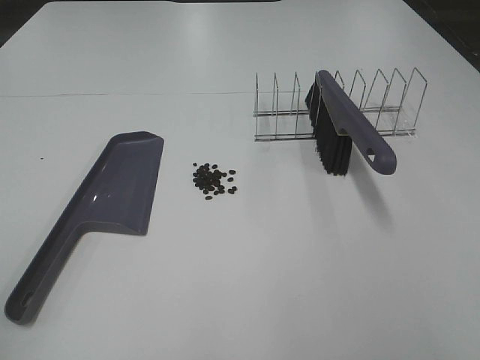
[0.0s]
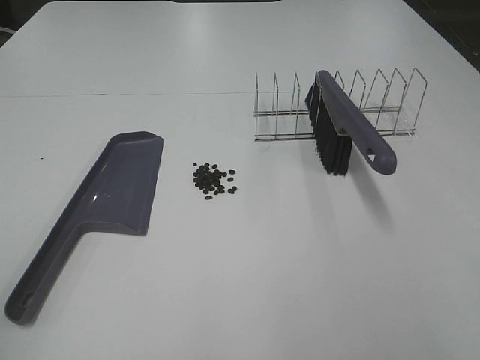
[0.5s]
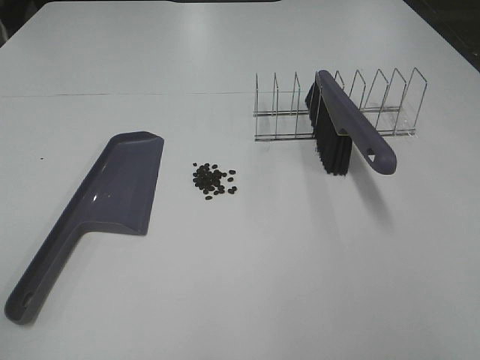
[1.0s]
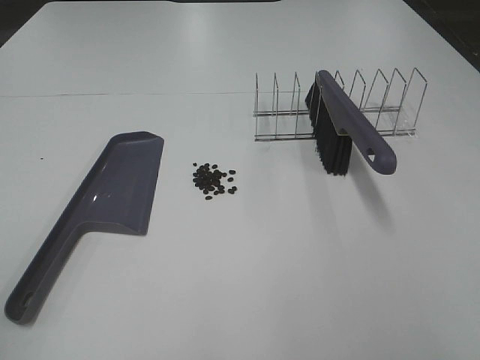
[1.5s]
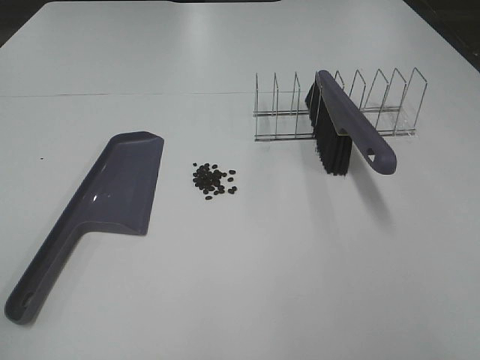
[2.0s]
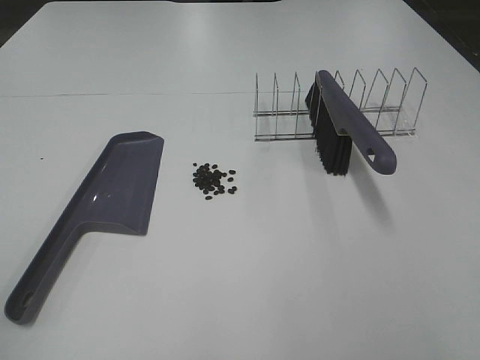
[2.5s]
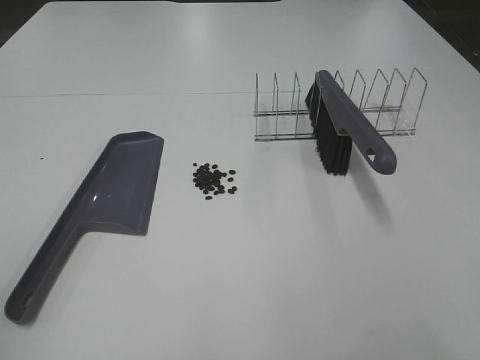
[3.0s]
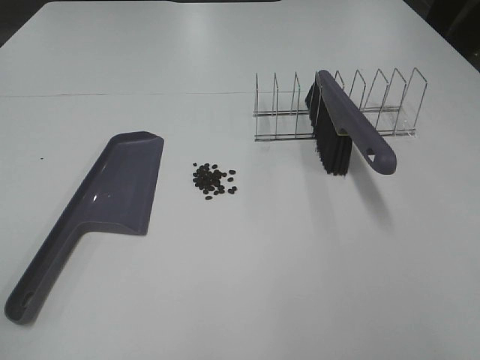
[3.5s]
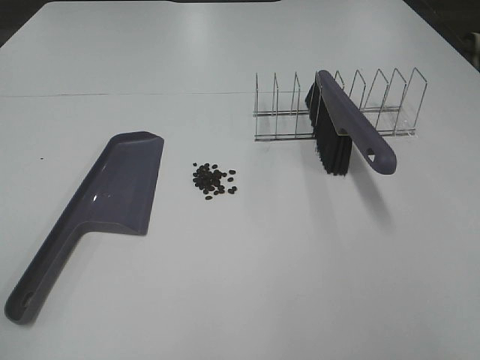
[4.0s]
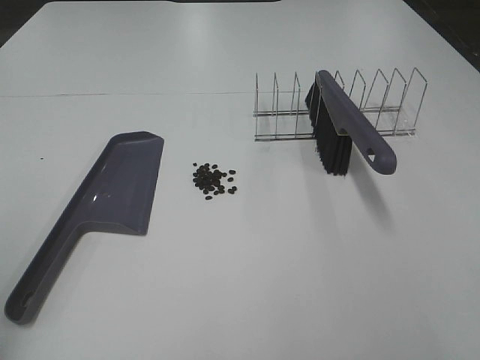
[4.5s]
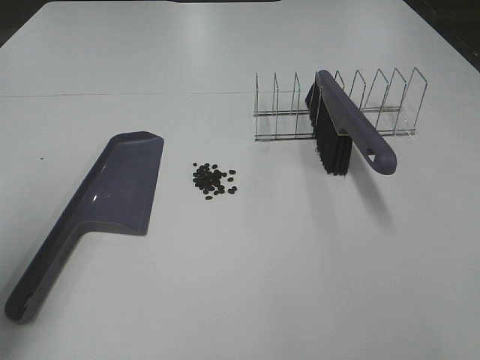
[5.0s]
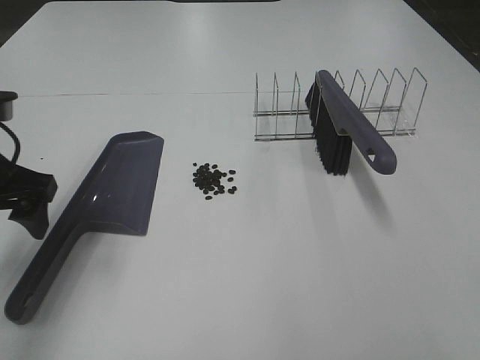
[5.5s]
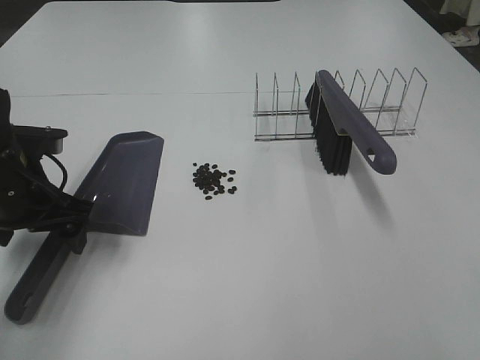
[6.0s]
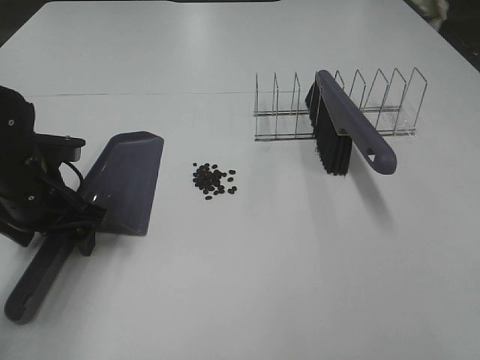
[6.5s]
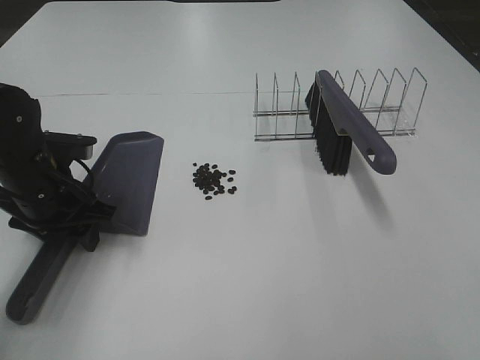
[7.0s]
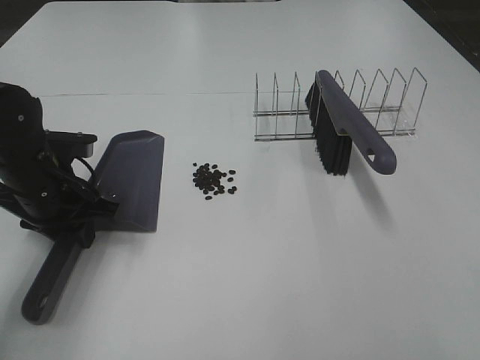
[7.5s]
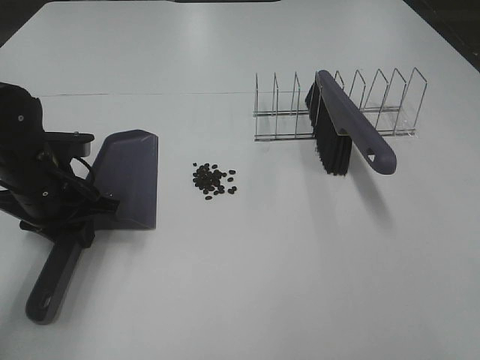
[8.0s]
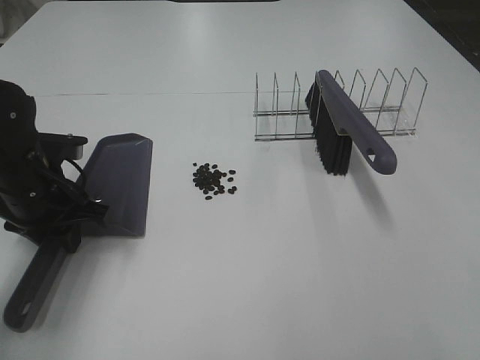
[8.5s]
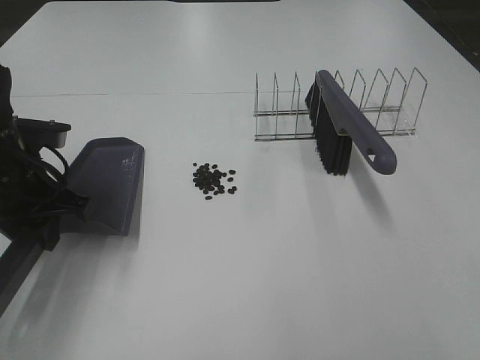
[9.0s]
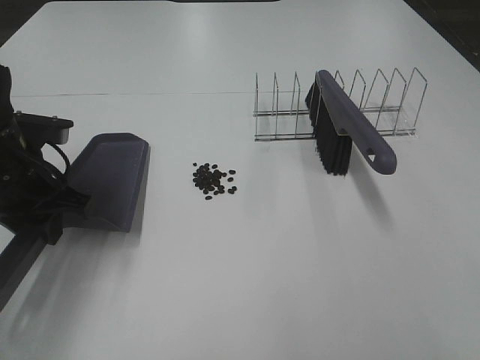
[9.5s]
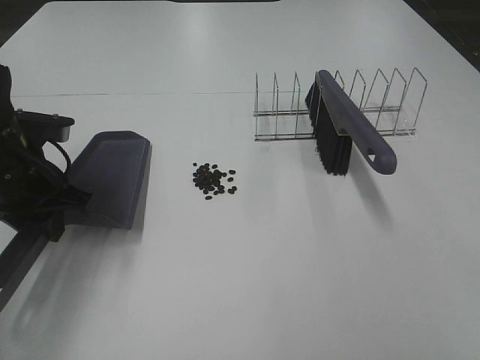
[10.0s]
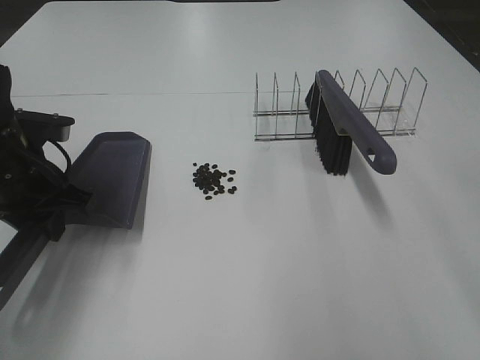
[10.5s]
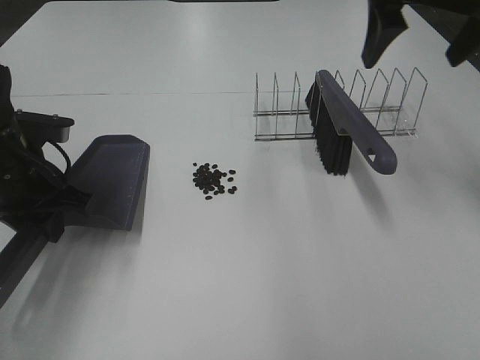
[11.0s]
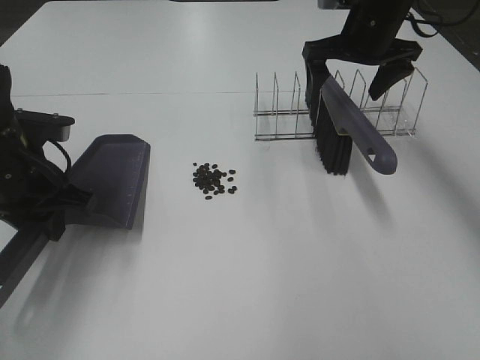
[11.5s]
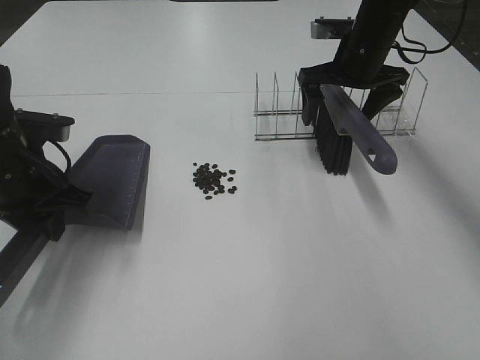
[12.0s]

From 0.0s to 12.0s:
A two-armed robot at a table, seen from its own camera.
Task of the whole recording: Sweep Coffee Bean.
Step, from 0.0s to 8.5s: Left hand: grab the dustpan.
From 0.0s to 4.0s: Both grippers stay put.
From 4.0s to 6.0s: The left gripper shifts approximately 35 cm forward and downward.
From 6.0s to 8.0s: The left gripper closes up.
From 8.0s to 10.0s: The left gripper moves roughly 5 cm.
From 10.0s to 12.0s: The right gripper travels forward by some 50 cm.

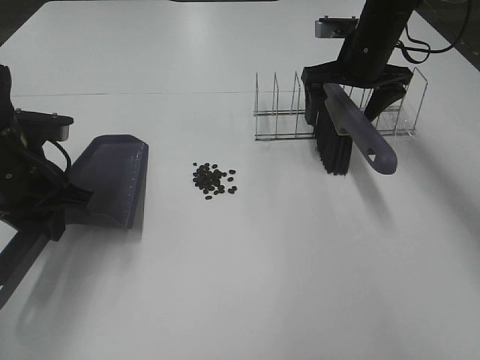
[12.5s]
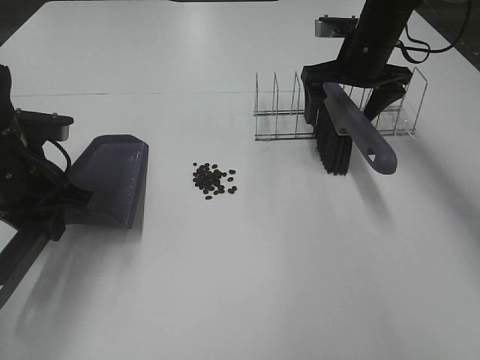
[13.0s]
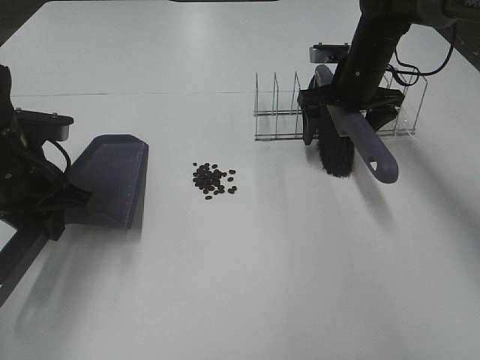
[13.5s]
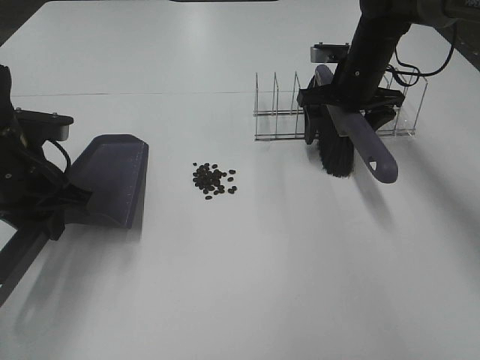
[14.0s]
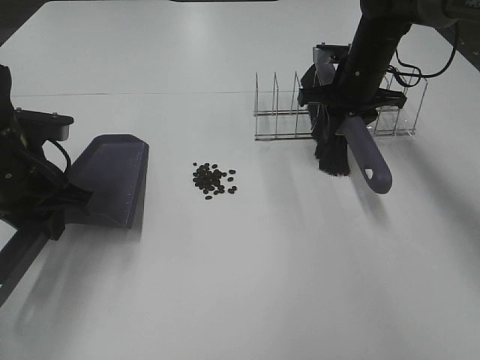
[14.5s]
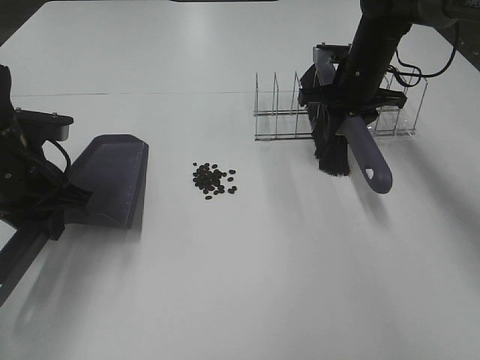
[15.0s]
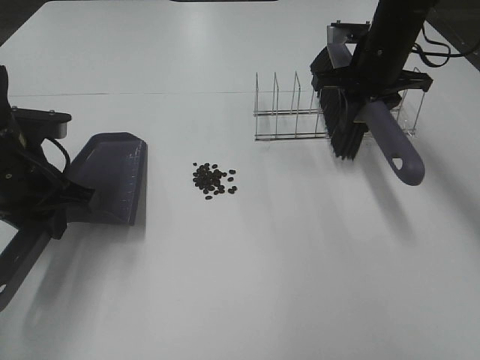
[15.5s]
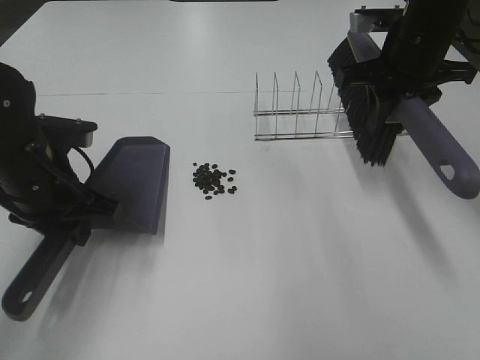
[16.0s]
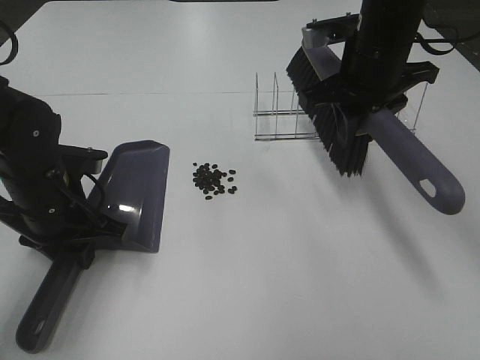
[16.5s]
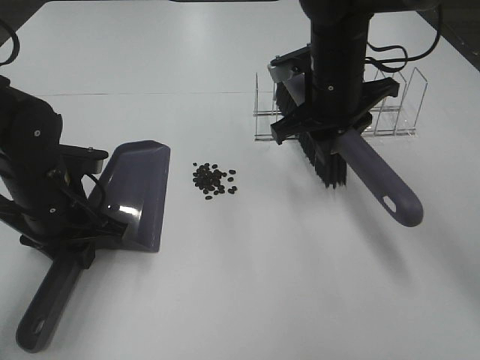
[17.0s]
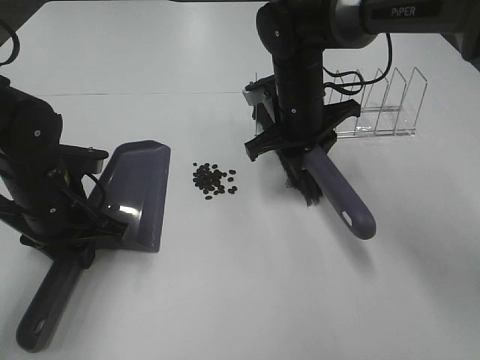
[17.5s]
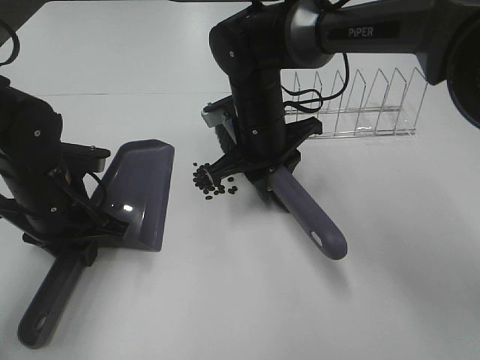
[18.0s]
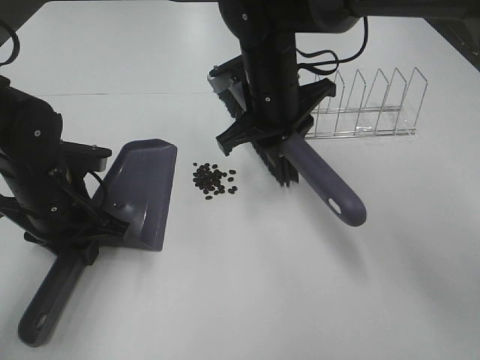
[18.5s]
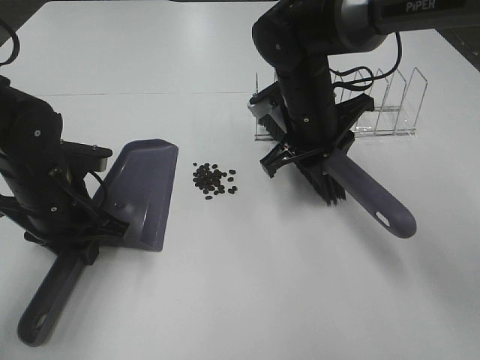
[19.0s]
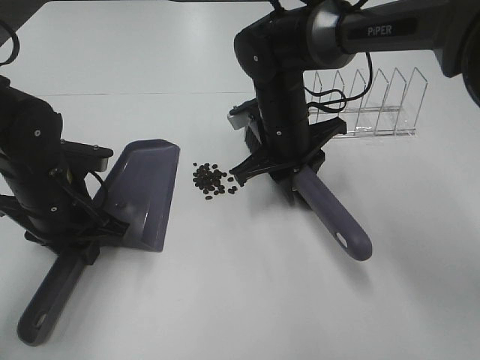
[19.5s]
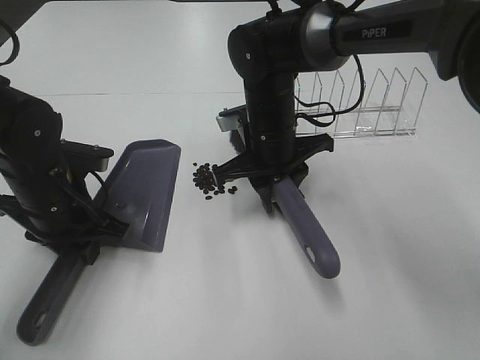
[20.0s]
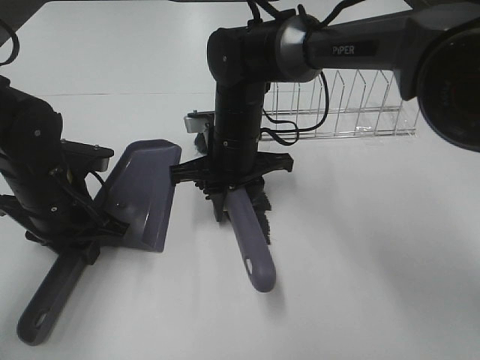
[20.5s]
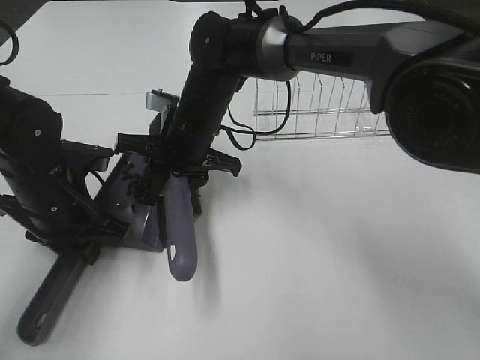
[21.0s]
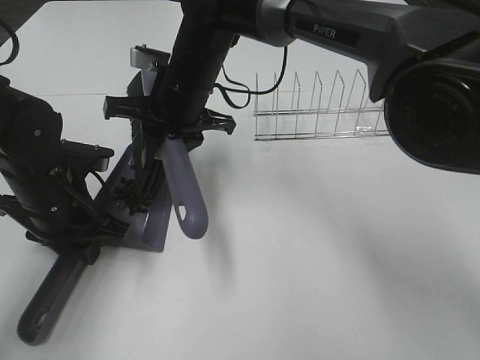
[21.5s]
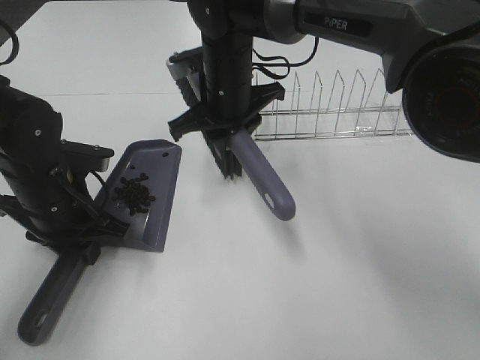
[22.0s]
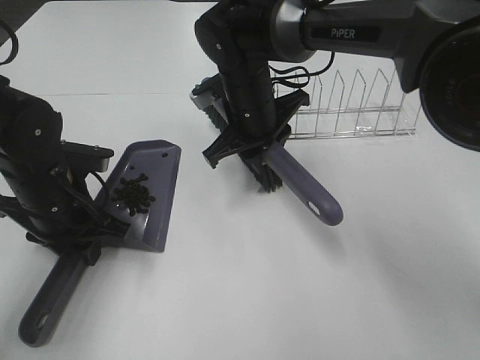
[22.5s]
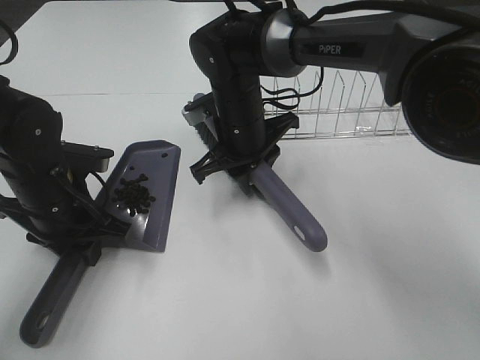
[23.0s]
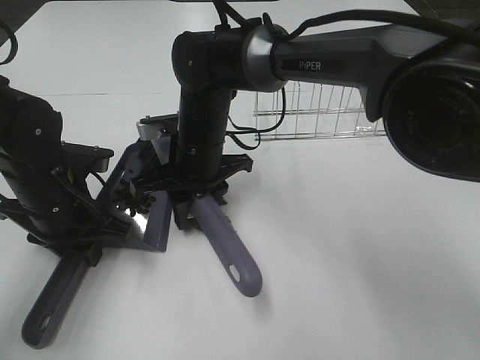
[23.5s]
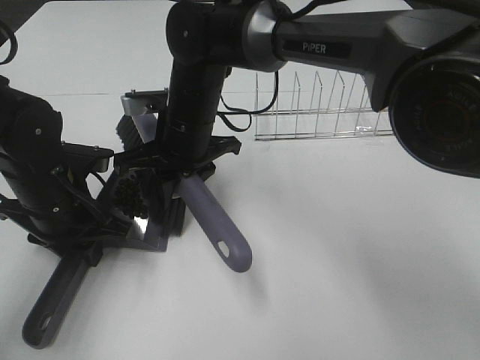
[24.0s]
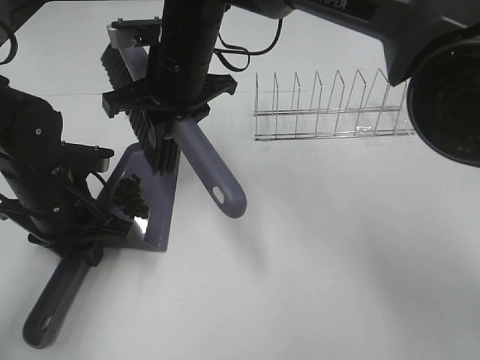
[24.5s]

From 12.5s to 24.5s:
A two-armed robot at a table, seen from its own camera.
Task of the whole recording: Sweep Coffee Bean.
Step, from 12.5s to 14.5s: Right hand:grab the broom.
Step, from 12.5s to 16.5s: Left hand: move the dustpan to the left side of the coffee beans.
Step, from 15.0s to 24.0s: Right hand:sweep the coffee beans into the dustpan.
From 12.5s to 14.5s: The right gripper closes its fingers.
From 14.5s to 16.5s: The left gripper moves approximately 5 cm; the right gripper is displaced backward and upward by some 15 cm.
From 16.5s to 18.5s: The right gripper is displaced to the left by roughly 10 cm.
From 18.5s to 20.5s: The right gripper shifts about 5 cm downward.
From 22.5s to 24.5s: The right gripper travels to the left and upward by approximately 10 cm.

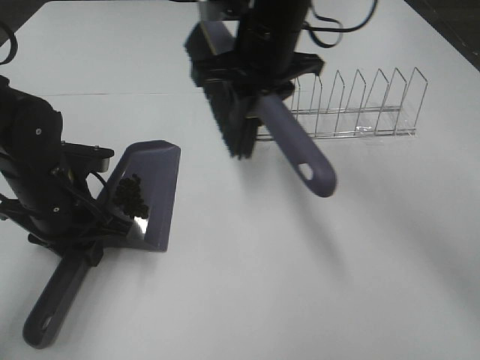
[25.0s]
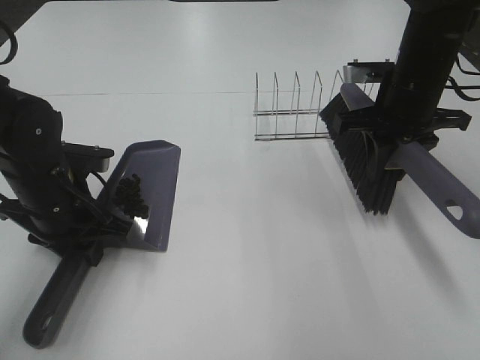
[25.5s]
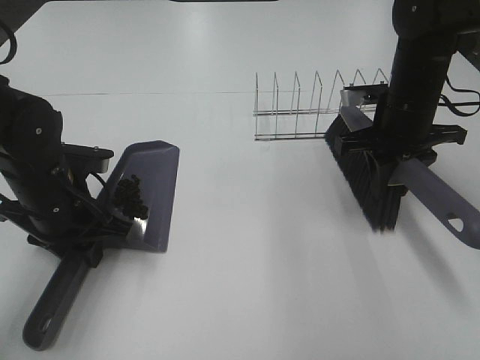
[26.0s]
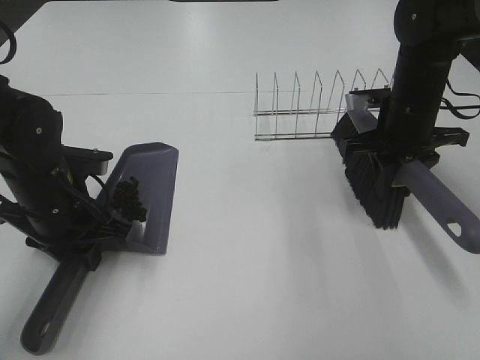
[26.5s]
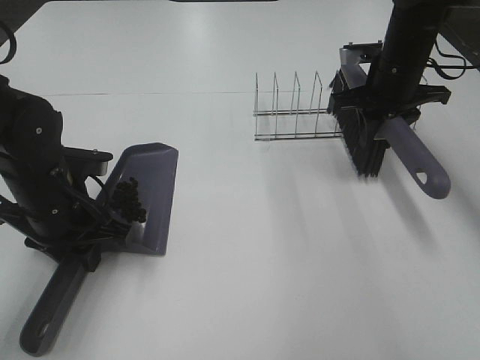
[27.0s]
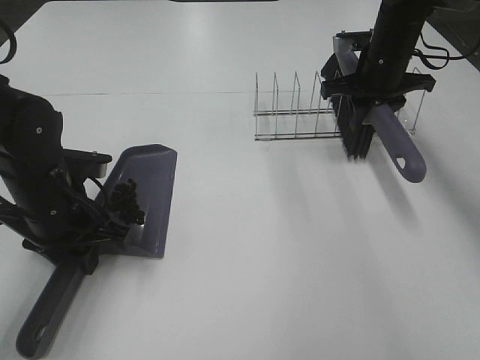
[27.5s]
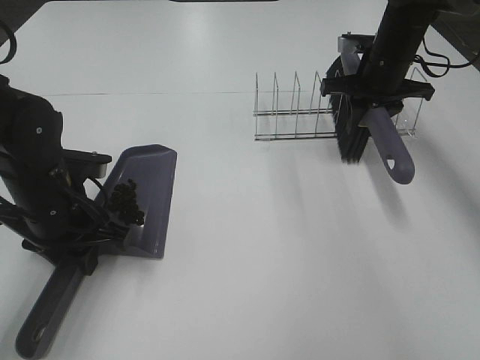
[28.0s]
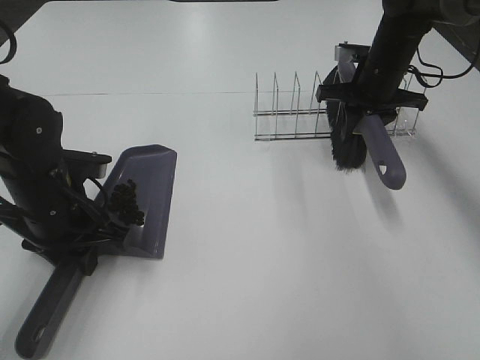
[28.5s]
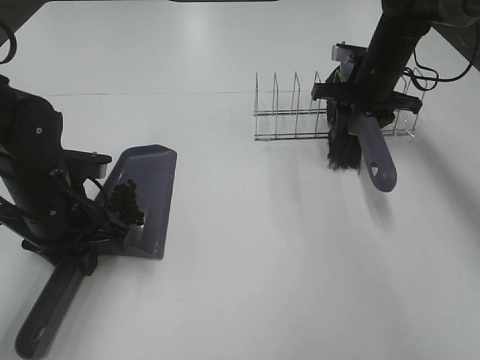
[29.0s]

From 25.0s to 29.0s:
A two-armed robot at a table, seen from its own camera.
Task of the whole recording: Sweep Coffee Bean.
From 25.0s to 27.0s: The right gripper moves to the right, about 20 cm.
From 27.0s to 29.0s: The grippers move only a little.
